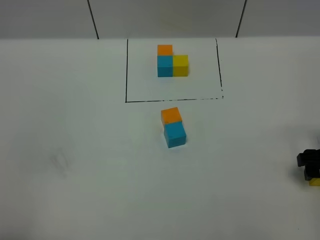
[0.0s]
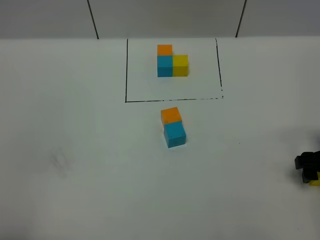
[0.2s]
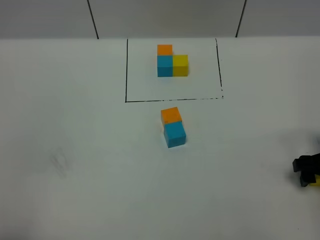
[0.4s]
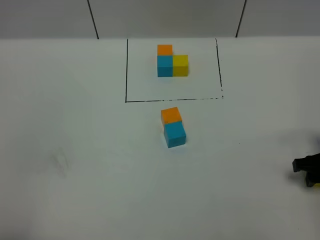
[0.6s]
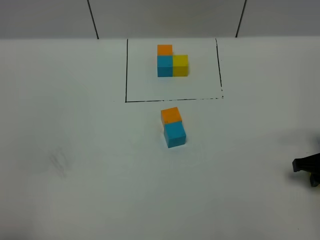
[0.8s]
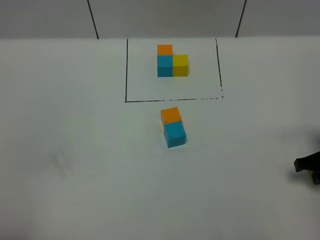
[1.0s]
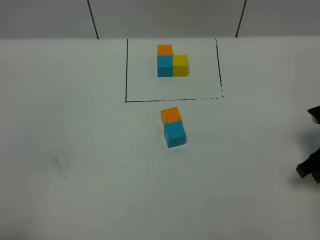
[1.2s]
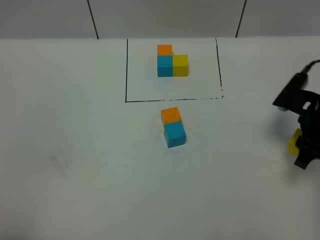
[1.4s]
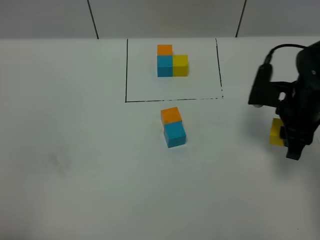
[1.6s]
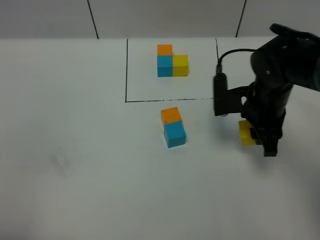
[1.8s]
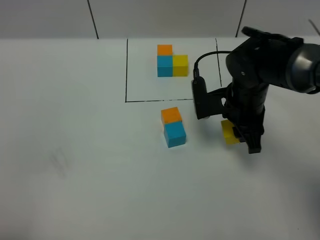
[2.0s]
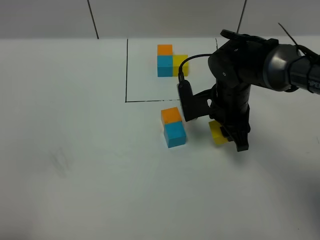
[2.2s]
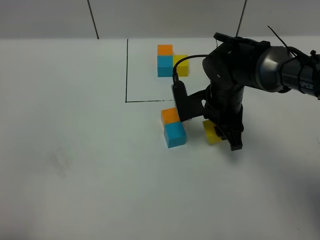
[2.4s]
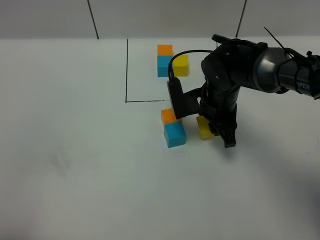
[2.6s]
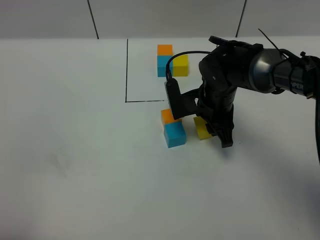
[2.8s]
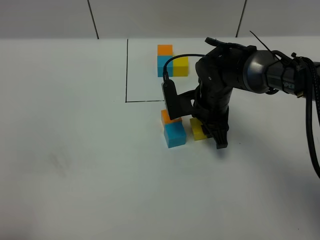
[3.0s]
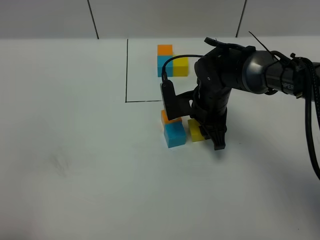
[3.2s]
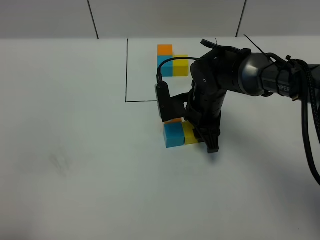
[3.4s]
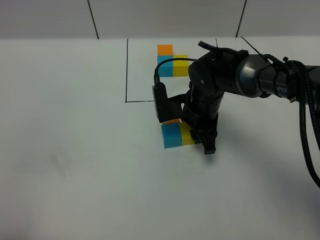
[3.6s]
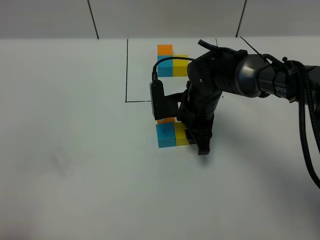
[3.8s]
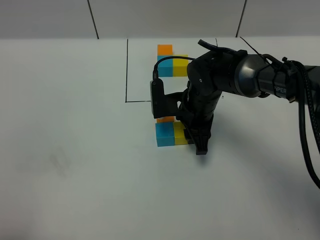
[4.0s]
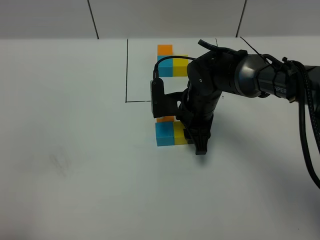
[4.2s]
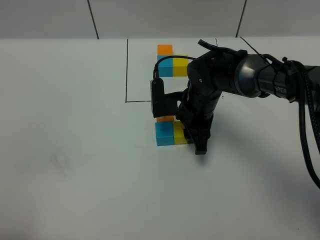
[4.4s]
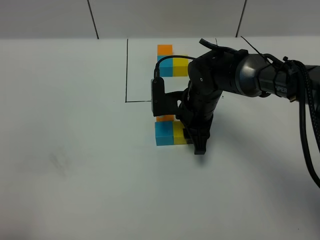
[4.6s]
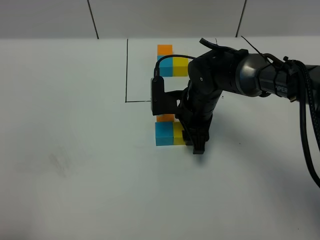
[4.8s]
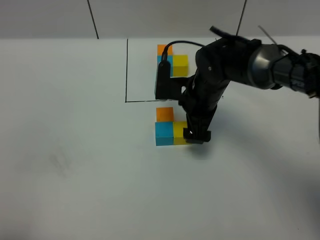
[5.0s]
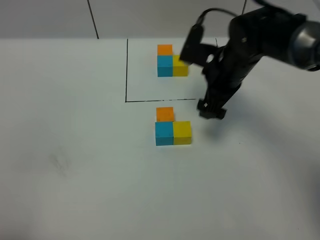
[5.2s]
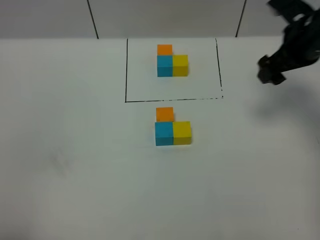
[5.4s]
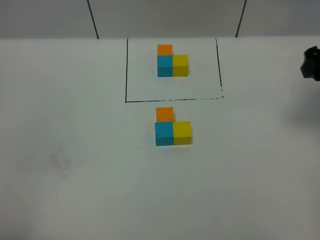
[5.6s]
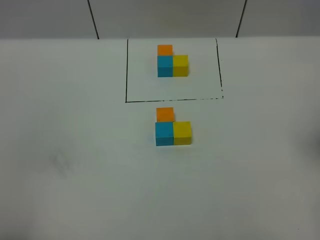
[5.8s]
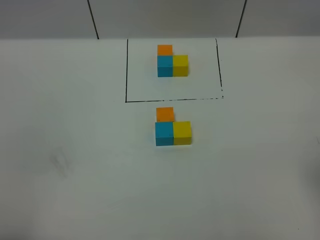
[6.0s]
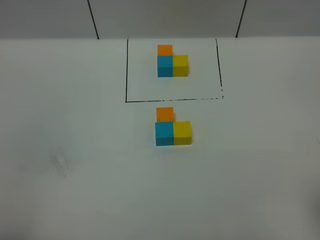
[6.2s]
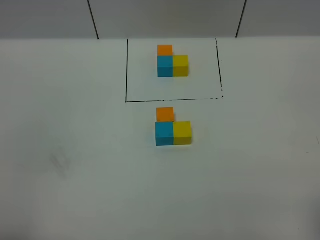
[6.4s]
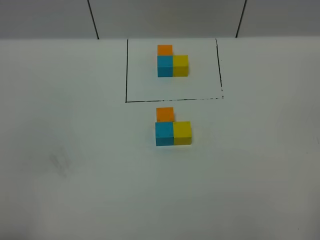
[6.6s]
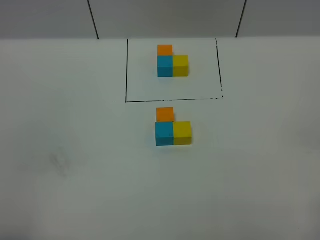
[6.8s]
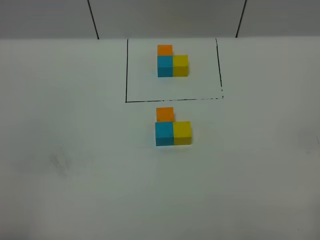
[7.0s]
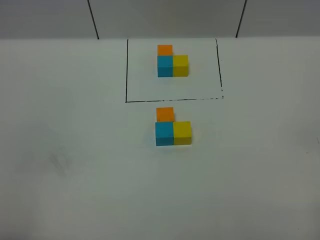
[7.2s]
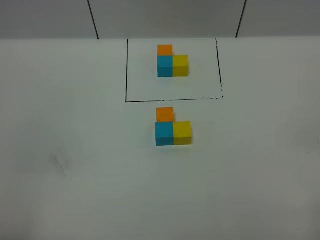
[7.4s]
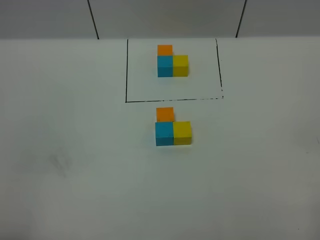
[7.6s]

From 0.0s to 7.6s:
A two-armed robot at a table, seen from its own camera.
Task of the whole recording: According to the building block template in front, assemble the scattered blocks together.
Step, from 0.0s to 4.8s: Put the yellow build block on the right of the blue build block.
From 0.0s to 1.6s: The right gripper heads to the left, forward and upward, covering roughly 15 cm, and closes.
From 1.6s to 3.0s: The right gripper is displaced to the left, downward and forward by approximately 15 cm.
From 3.0s to 4.6s: The grippers move only a little.
From 4.6s to 6.0s: The right gripper heads to the right, backward and upward, covering about 40 cm, and opens its fingers.

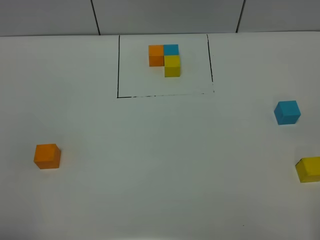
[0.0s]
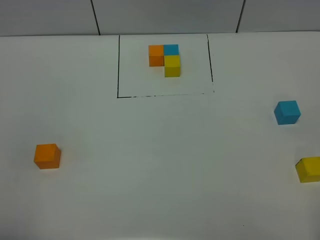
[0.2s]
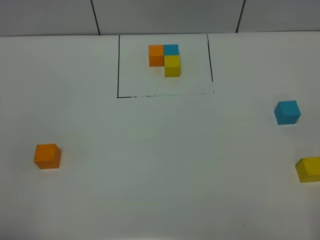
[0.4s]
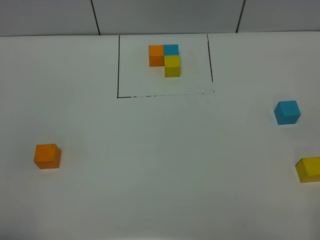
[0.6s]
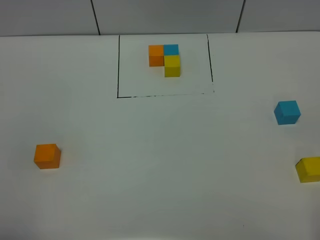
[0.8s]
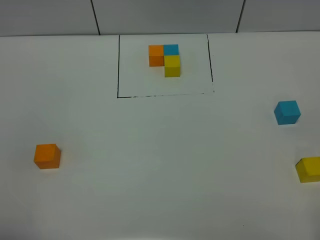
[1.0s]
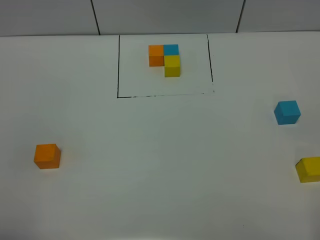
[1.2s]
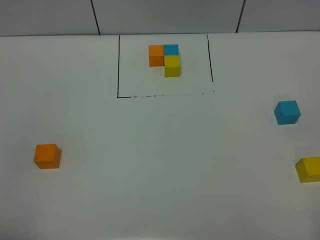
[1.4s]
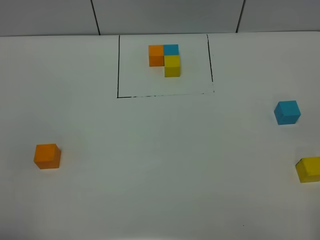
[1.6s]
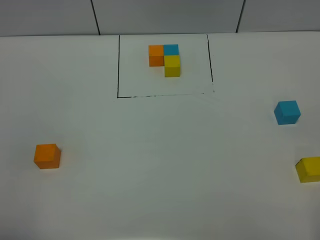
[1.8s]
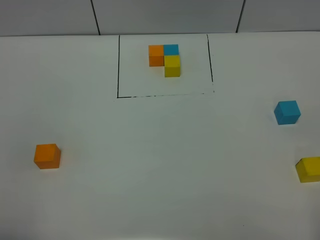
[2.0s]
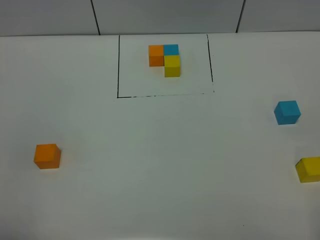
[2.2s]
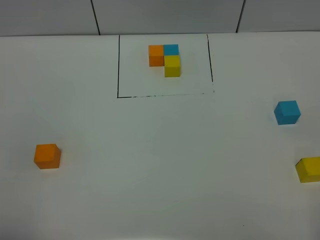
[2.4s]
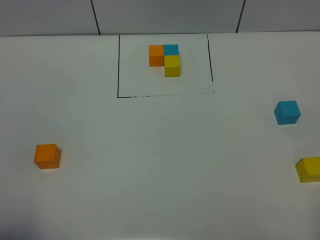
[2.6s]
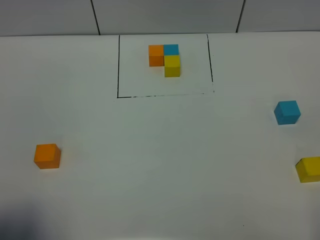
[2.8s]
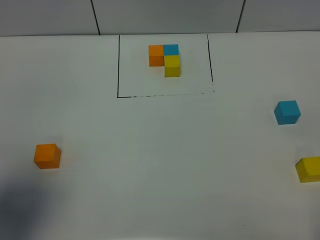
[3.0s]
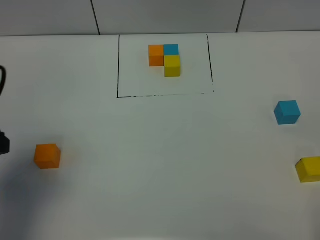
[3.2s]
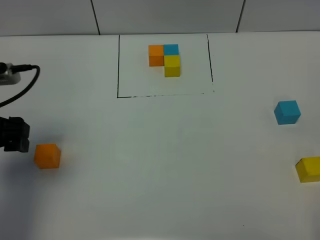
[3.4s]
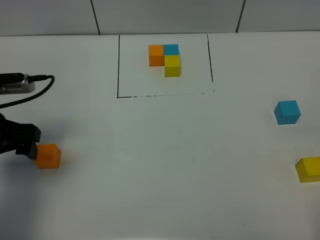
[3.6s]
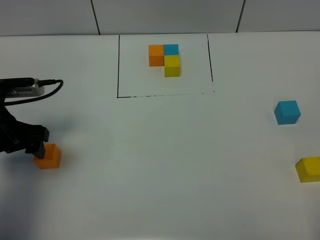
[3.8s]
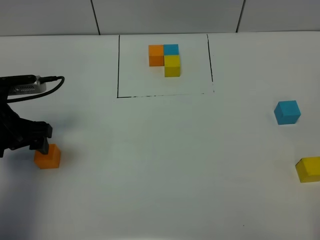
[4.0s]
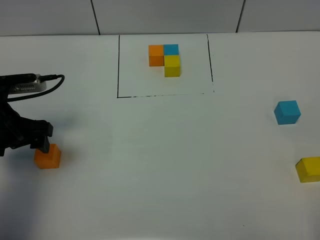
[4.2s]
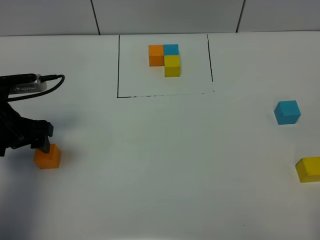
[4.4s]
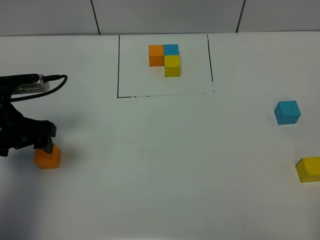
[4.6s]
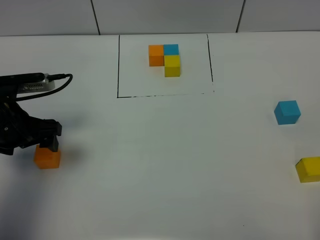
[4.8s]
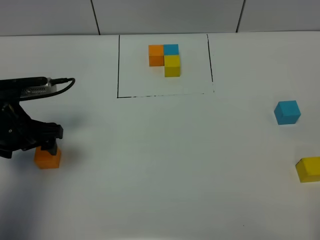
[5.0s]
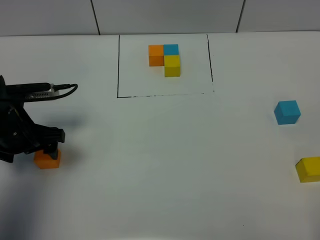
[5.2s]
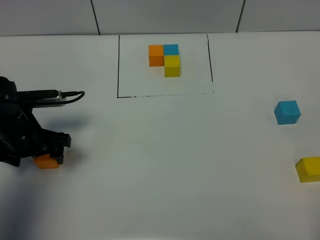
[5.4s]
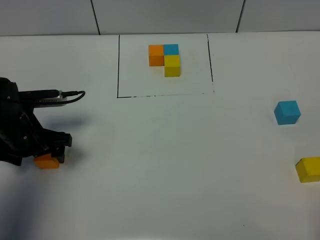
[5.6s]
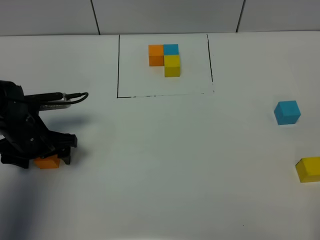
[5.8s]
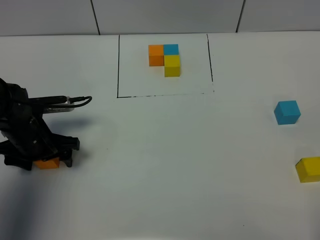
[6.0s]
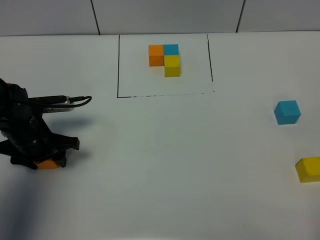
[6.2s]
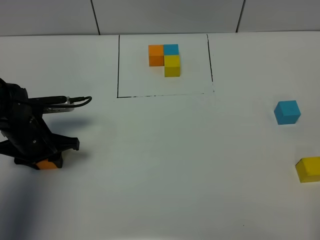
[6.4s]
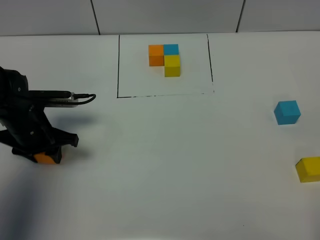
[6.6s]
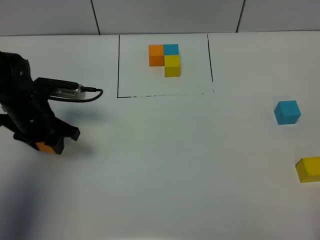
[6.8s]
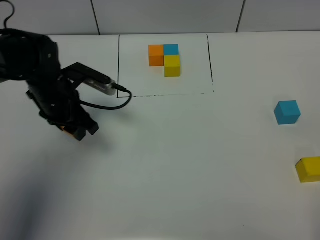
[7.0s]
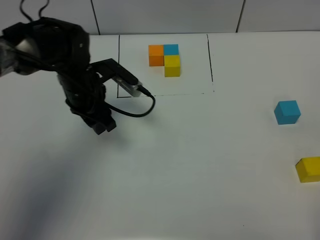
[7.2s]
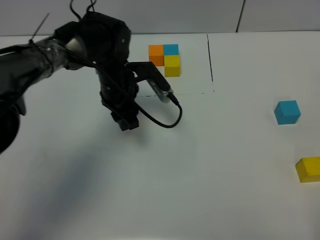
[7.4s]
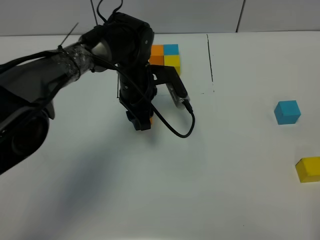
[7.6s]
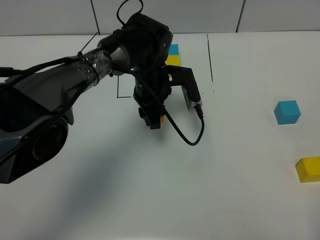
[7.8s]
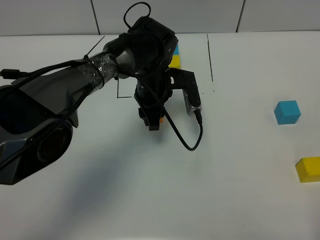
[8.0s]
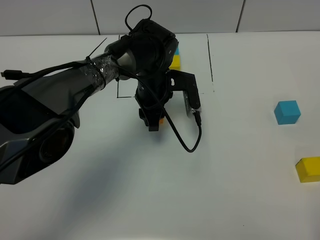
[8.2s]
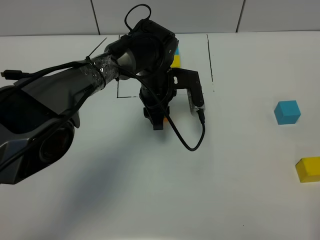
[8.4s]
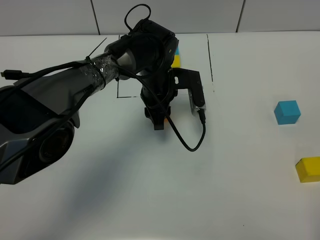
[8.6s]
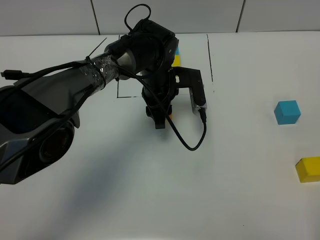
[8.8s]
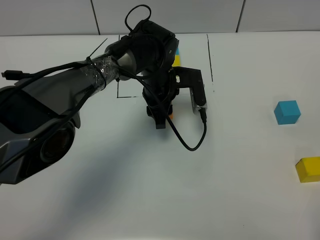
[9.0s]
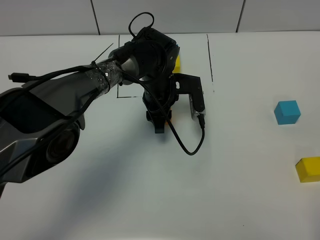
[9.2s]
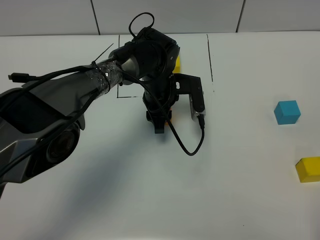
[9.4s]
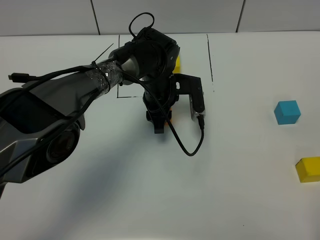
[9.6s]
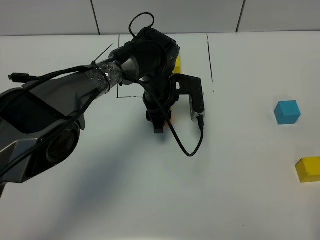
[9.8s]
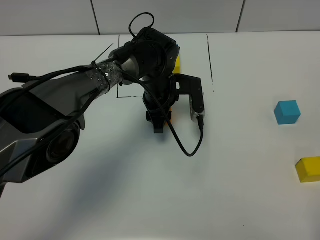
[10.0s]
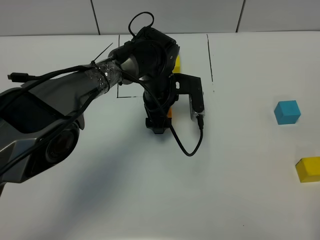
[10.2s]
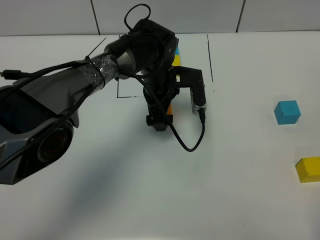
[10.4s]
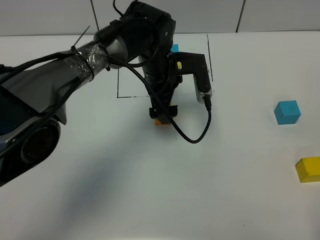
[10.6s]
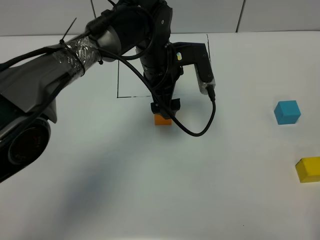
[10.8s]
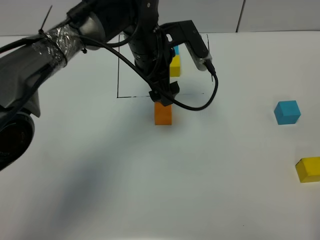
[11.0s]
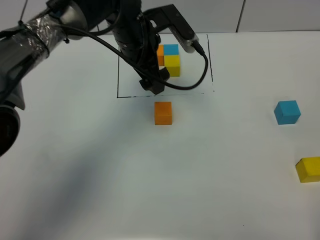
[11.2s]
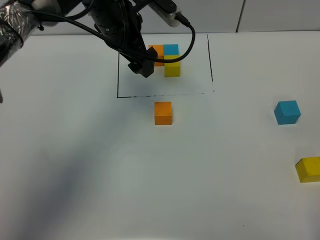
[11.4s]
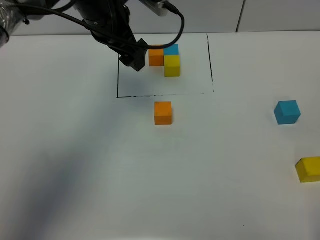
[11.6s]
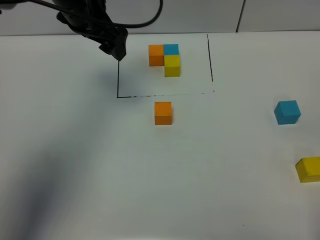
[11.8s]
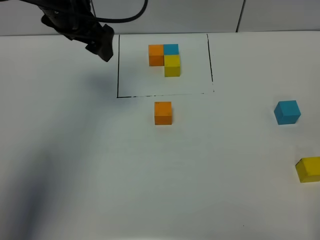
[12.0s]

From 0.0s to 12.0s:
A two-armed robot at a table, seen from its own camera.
Task of the whole recording: According to the building block template in front, assemble the scattered blocks together.
Step, from 0.0s to 10.0s: Put the orange build block in the center of the table.
From 0.0s to 1.6s: The two grippers keep their place.
From 1.6s to 3.0s: The left gripper travels forward by approximately 15 cm.
From 3.0s to 4.4s: The left gripper shifts some 20 cm forward and downward.
From 4.4s to 6.0s: The left gripper goes about 10 cm downward.
From 6.0s to 7.6s: The left gripper moves to the right and forward, roughly 25 cm, and closes its fingers.
From 9.0s to 10.4s: The left gripper opens.
From 10.4s to 12.0s: The left gripper heads to the left and upward, covering some 25 cm.

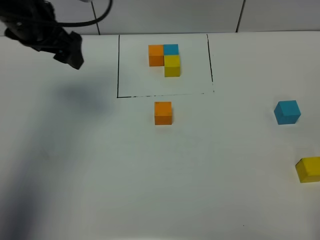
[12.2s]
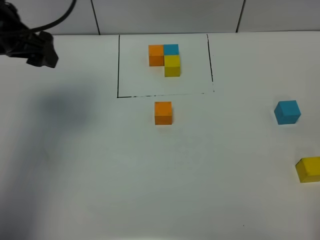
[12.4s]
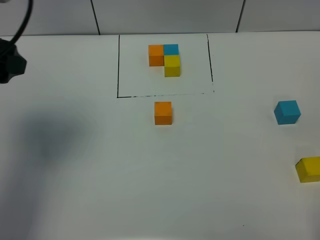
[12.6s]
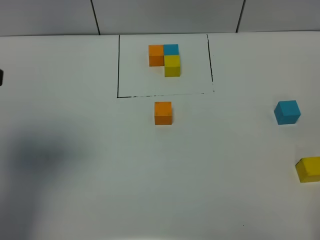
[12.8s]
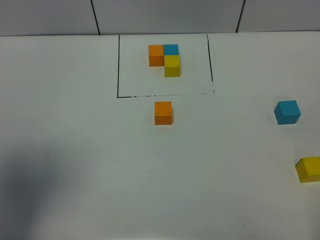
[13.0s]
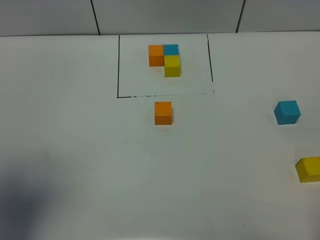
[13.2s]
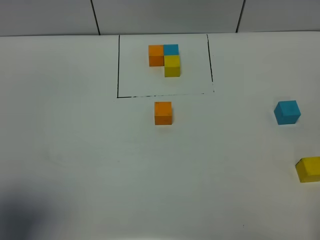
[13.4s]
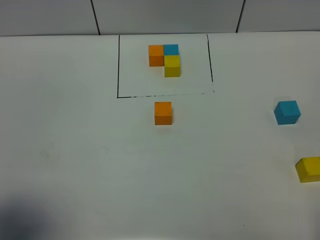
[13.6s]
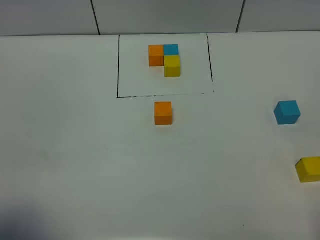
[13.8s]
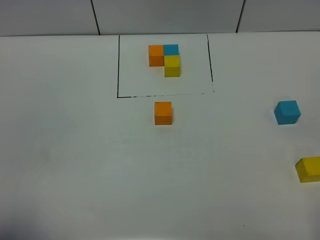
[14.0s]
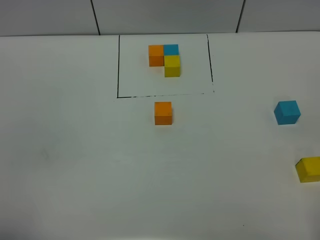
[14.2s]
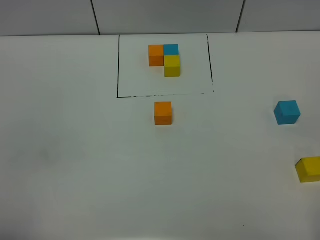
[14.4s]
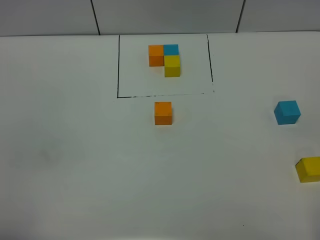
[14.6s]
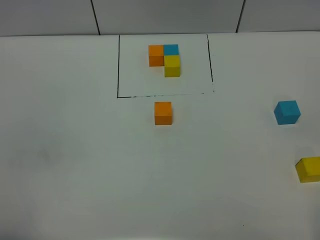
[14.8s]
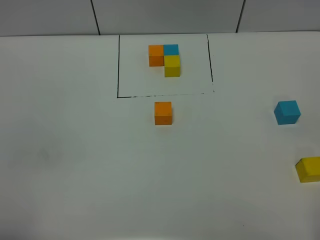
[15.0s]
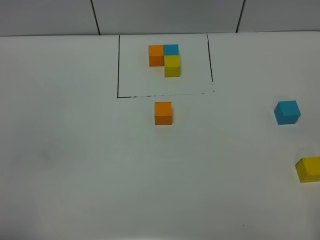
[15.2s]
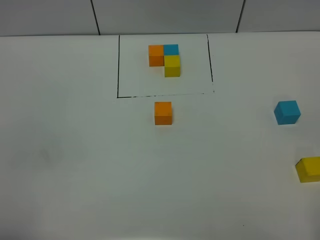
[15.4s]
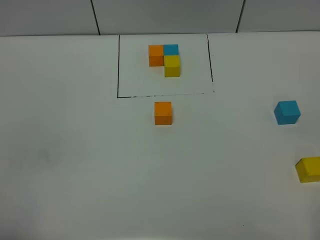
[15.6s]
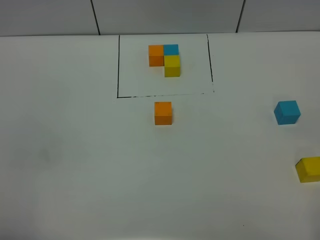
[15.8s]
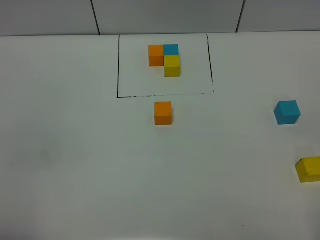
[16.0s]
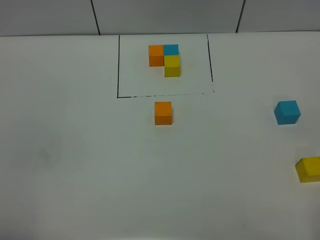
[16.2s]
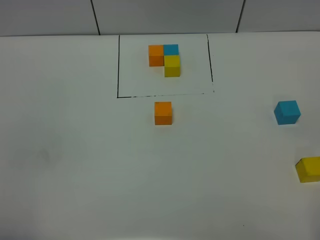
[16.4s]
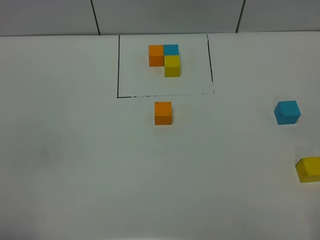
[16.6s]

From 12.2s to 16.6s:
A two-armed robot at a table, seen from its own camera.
Task of the whole recording: According to the building block template in front, assemble the scattered blocks together.
From 12.2s to 13.6s: The left gripper is displaced backward by about 30 cm.
From 13.6s to 15.2s: The left gripper shifts about 5 cm backward.
From 15.2s to 16.6s: The two grippers keep their place.
